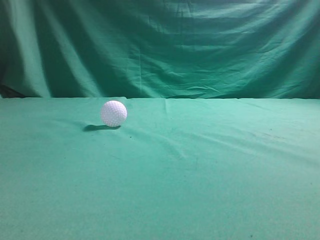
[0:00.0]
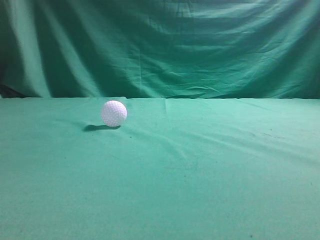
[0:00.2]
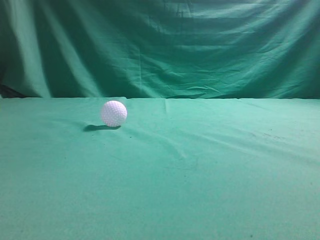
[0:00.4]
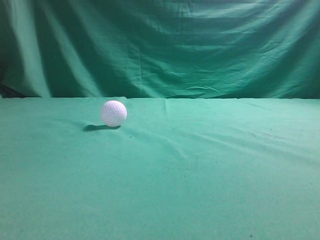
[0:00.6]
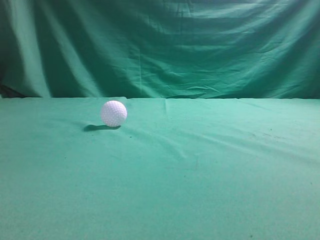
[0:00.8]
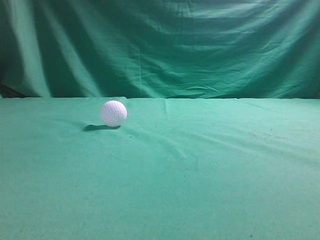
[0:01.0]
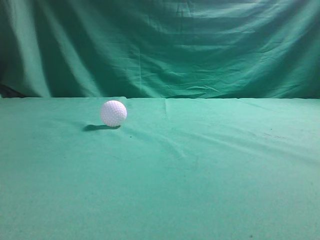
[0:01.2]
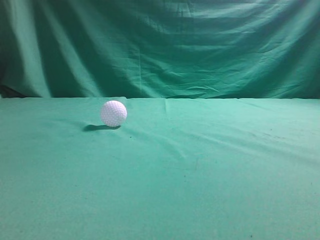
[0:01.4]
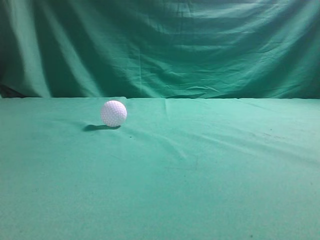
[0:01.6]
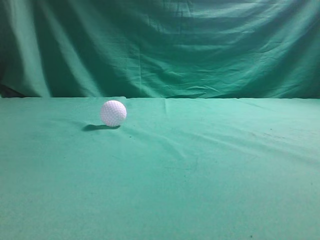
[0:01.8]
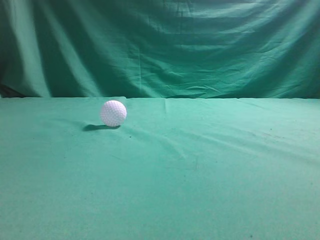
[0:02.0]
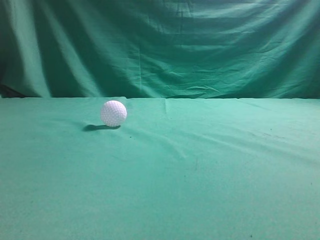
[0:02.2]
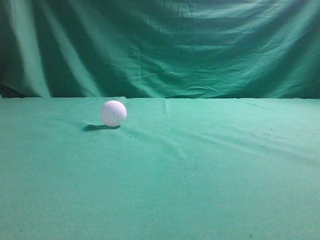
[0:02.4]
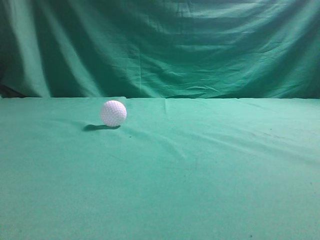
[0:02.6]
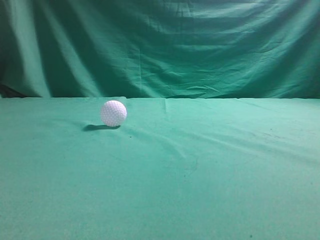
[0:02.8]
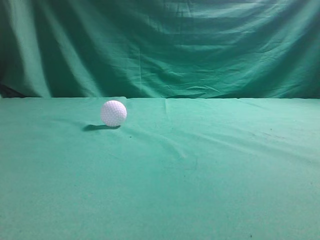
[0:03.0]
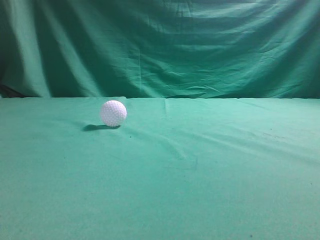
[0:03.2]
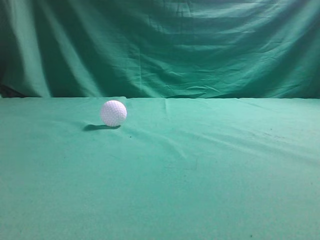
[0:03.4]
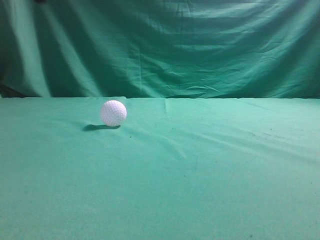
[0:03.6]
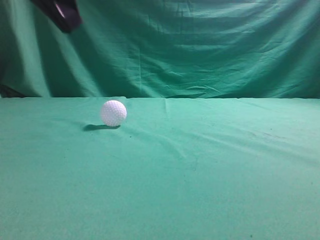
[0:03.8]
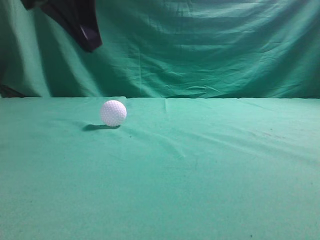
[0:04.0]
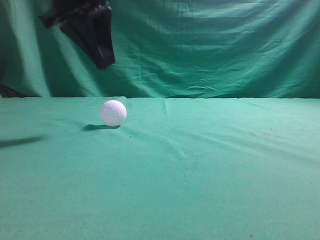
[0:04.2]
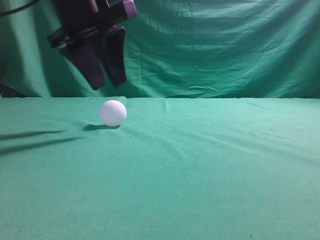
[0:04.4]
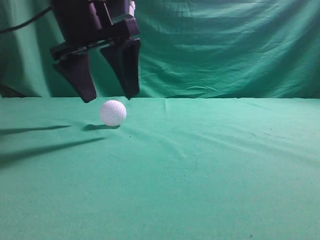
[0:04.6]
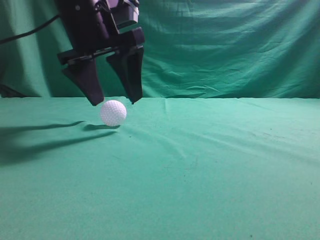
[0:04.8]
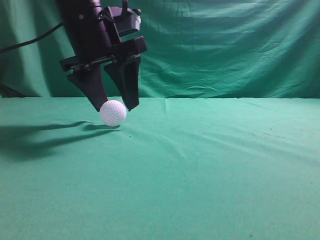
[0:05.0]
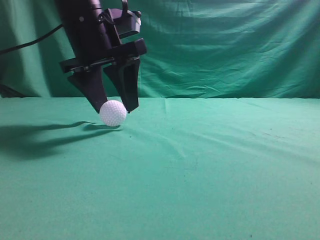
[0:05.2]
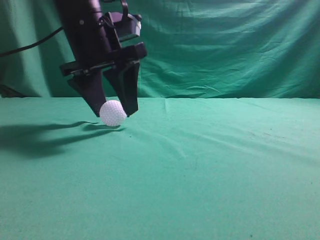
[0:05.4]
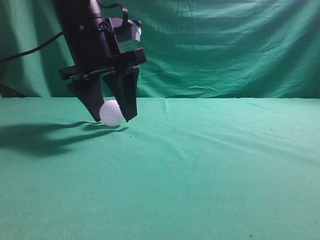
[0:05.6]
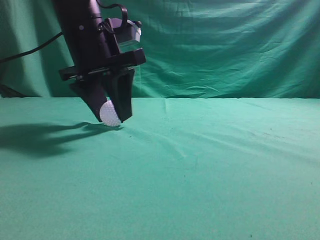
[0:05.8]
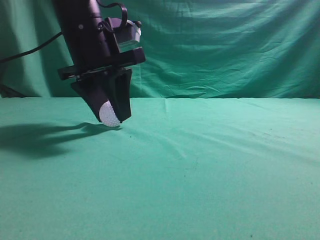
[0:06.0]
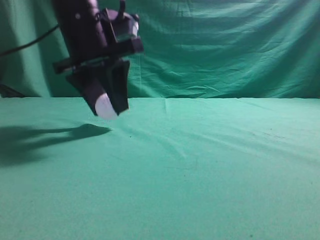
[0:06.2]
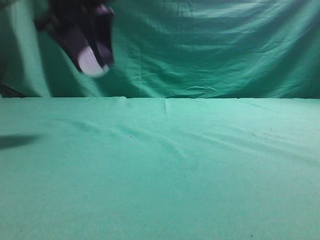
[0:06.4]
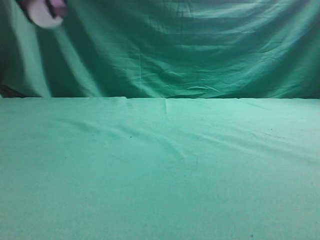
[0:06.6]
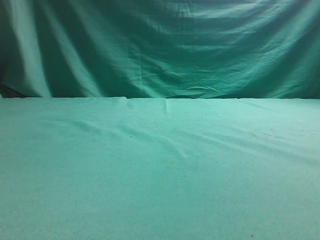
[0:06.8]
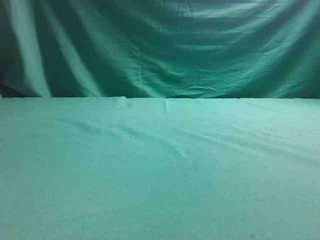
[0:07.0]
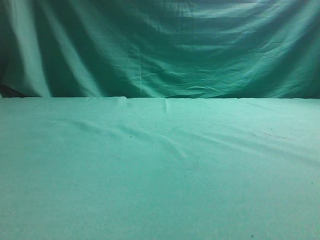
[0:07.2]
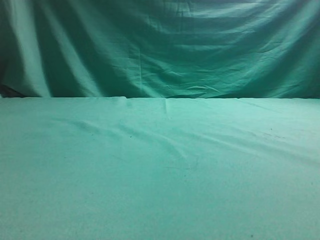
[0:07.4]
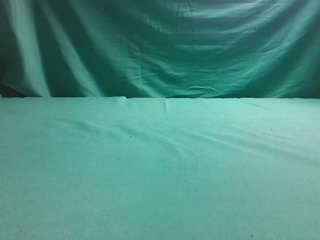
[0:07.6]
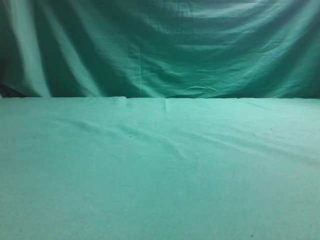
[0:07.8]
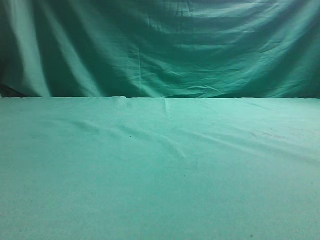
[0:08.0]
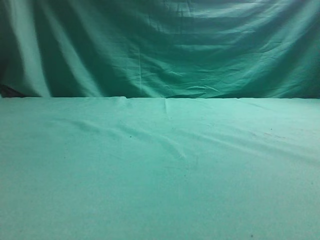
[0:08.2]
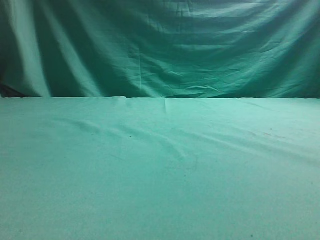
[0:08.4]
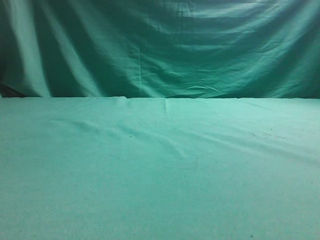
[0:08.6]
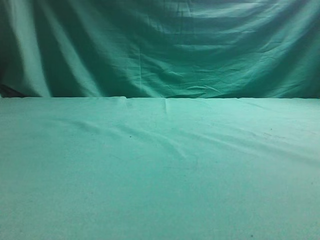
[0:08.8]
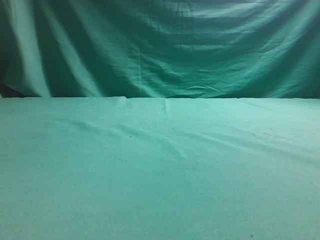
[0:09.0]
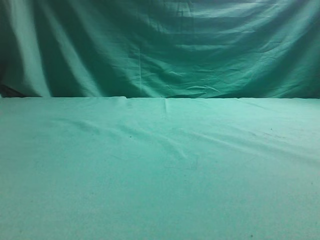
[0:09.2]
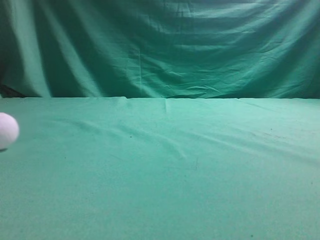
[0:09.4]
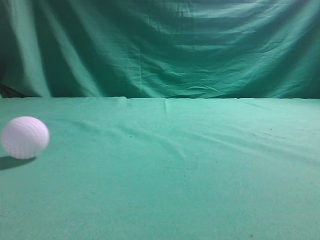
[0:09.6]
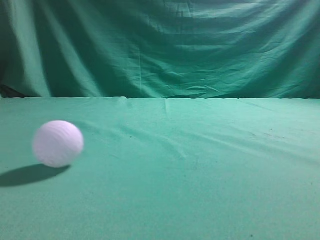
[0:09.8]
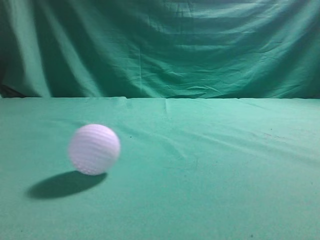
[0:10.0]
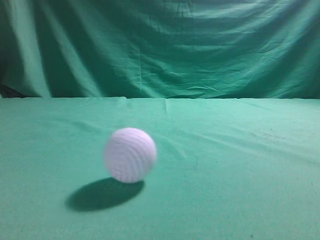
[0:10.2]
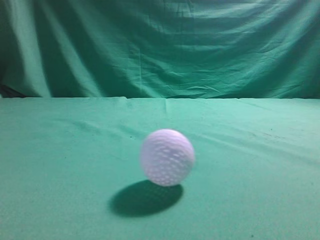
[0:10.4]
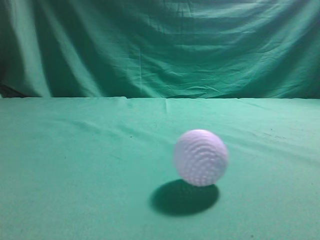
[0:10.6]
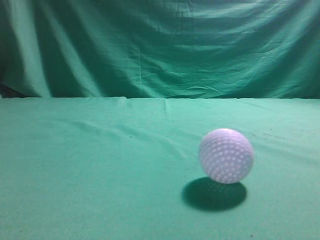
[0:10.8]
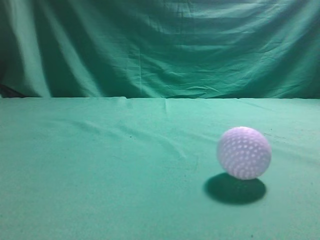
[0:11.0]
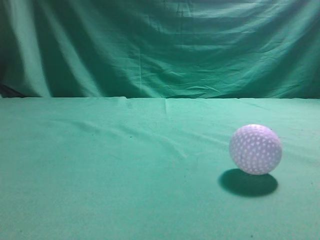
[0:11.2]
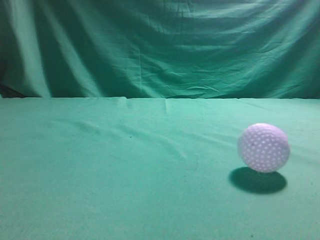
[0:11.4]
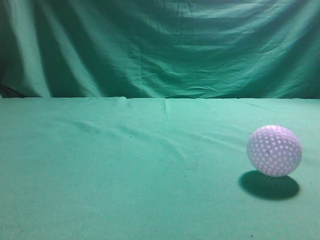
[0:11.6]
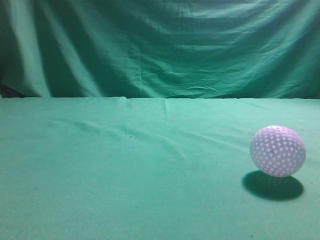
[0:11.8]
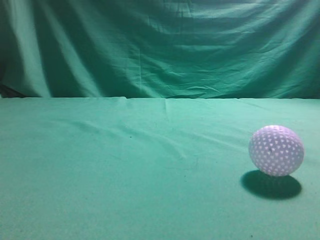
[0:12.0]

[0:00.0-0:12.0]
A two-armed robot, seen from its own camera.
Task of the whole recording: pick up the ball and place it on the plate, then pick up the ball from the plate and put it in the center of the table.
Step, 0:00.0 to 0:06.0: Grab the spherical object with your left arm.
Step, 0:06.2 to 0:08.6: Place the sphere on the white object.
0:03.0 to 0:04.4: The left gripper travels forward, to the right and downward by roughly 25 cm, and opens.
0:04.4 to 0:06.0: The left gripper changes place by about 5 cm, and opens, then closes again.
0:06.0 to 0:07.6: The left gripper goes some 25 cm to the left.
0:09.0 to 0:10.4: The left gripper travels backward by some 30 cm, and closes.
0:10.4 to 0:12.0: The left gripper goes roughly 5 cm downward, while the right gripper is displaced upward, to the left and forward by approximately 10 cm.

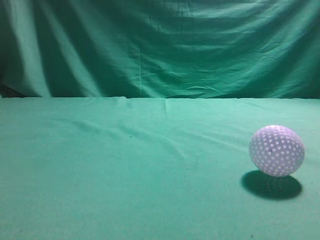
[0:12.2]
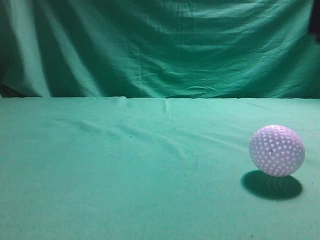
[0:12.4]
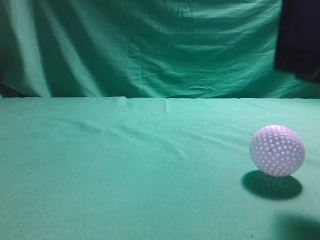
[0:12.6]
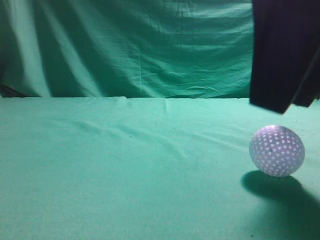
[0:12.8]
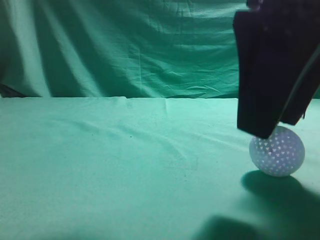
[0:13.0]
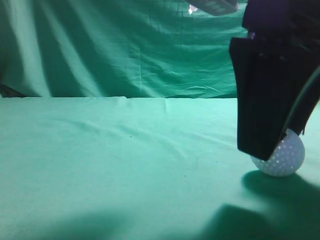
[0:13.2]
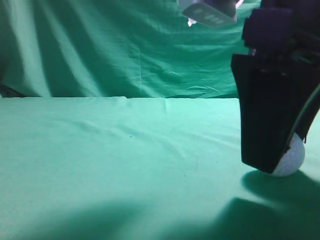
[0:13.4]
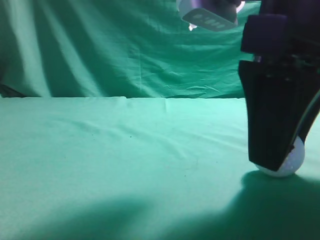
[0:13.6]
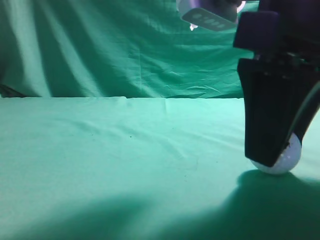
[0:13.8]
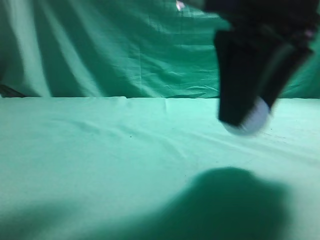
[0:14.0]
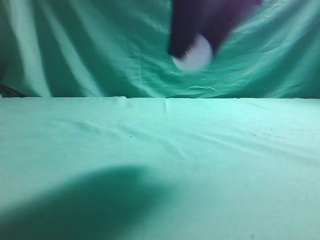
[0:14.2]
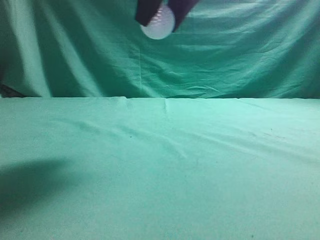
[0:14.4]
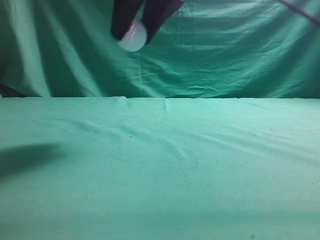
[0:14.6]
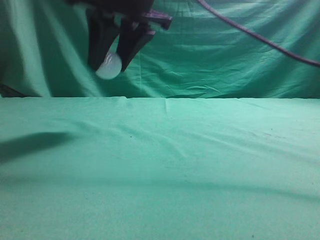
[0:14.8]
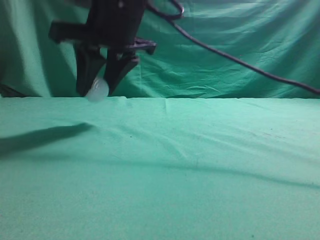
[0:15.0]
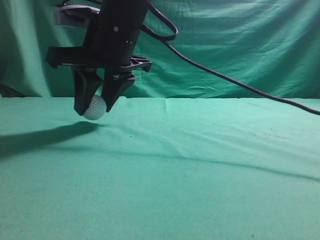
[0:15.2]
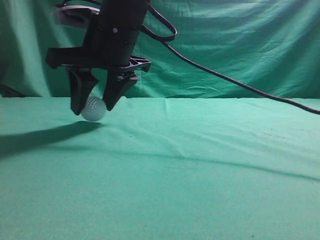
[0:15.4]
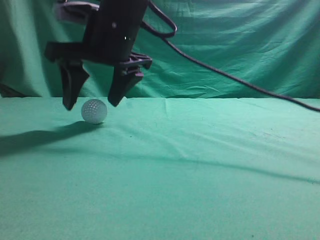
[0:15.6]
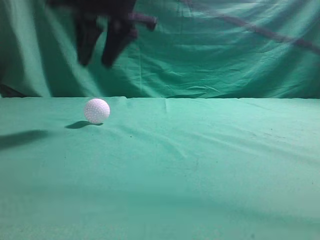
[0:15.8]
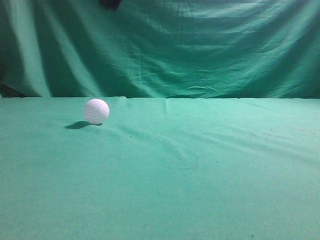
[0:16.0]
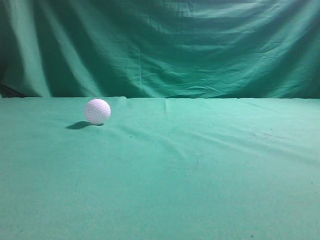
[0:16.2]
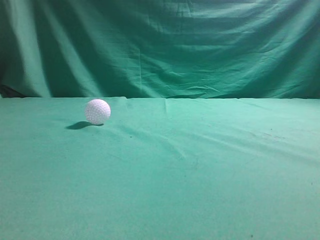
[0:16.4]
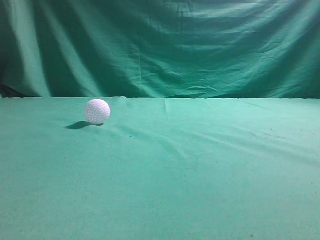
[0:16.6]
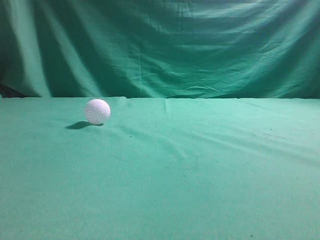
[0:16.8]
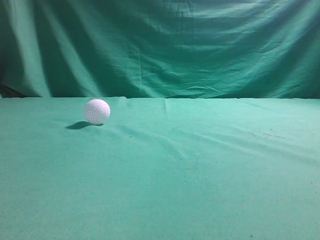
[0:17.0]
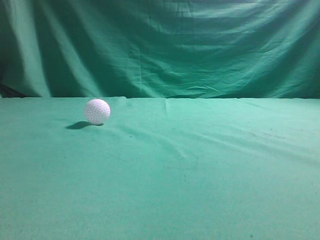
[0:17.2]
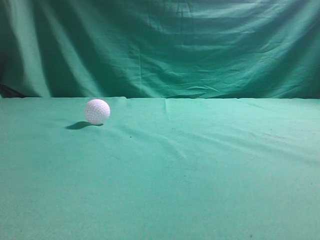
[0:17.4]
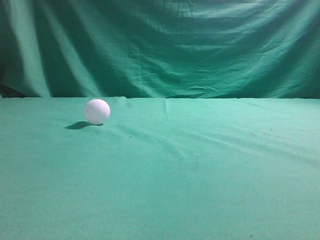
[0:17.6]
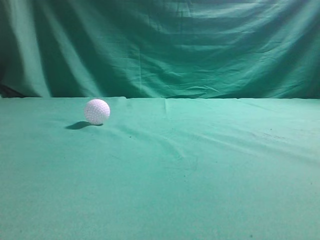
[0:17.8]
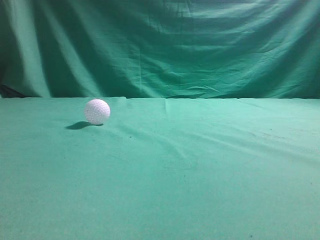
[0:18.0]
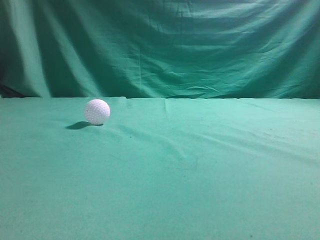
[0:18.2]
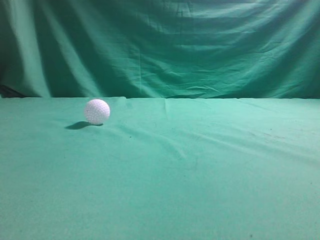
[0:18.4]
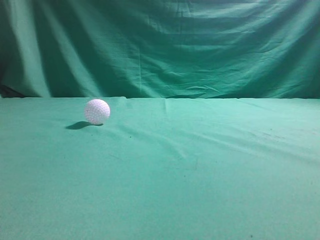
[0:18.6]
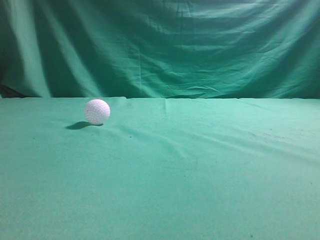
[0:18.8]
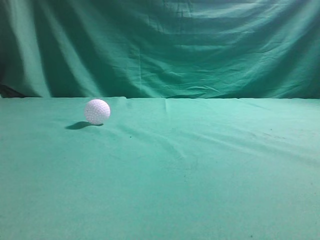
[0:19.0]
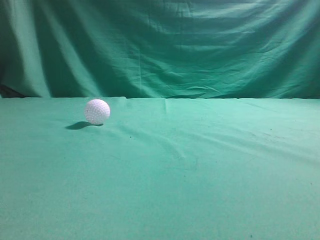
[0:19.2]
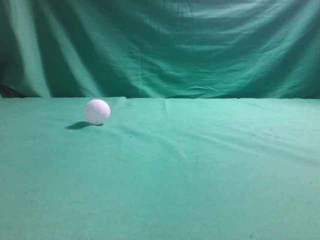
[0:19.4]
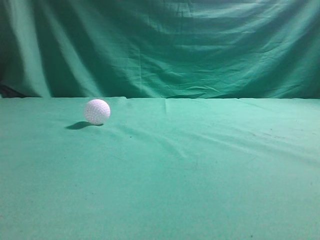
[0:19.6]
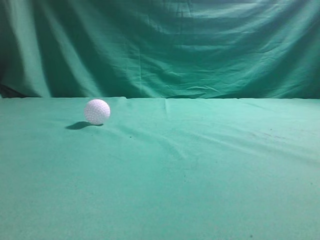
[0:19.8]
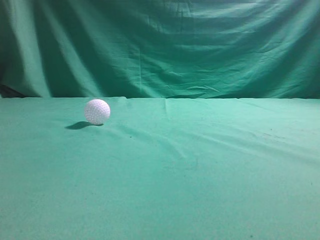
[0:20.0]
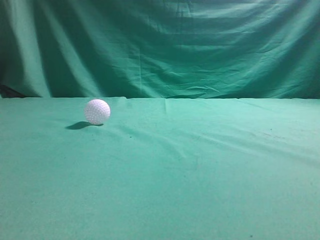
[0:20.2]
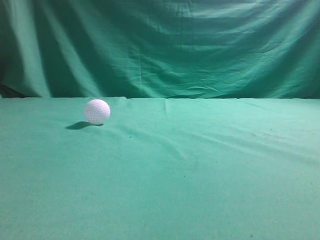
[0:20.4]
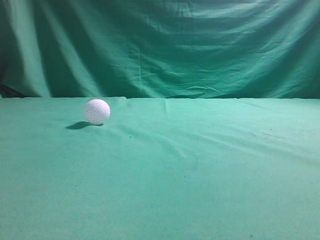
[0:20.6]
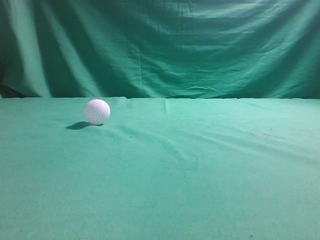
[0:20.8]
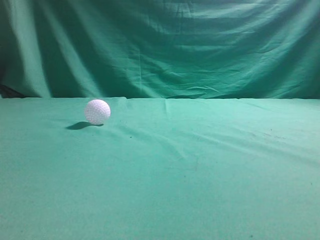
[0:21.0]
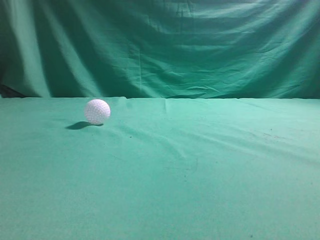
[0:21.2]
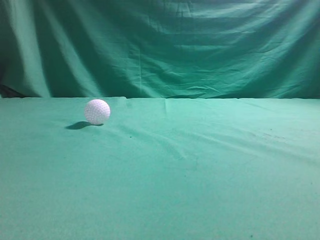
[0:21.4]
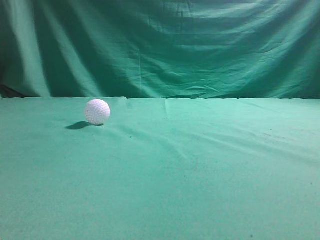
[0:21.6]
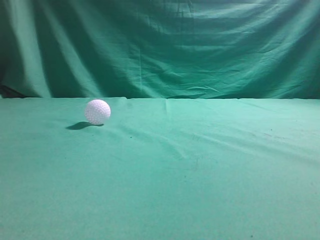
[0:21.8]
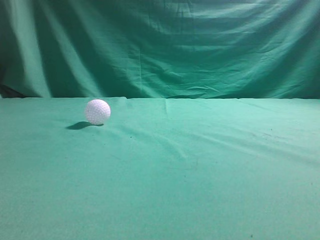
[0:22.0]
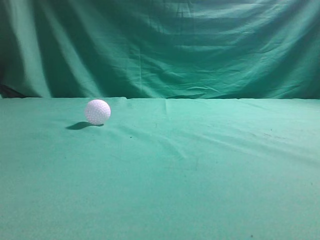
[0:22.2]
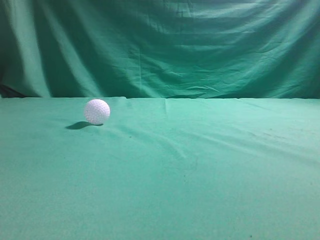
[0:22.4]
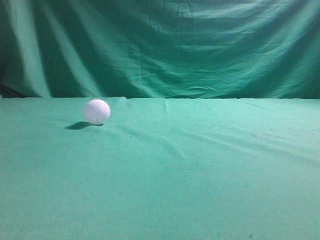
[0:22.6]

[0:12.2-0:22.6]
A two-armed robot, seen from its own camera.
Task of the whole recording: pick up the ball and place it on the plate, then pick up the ball from the plate and put it in the center of the table.
Step, 0:14.0 to 0:15.6: Put the picked-up object on the table.
0:12.2 to 0:13.6: The right gripper moves downward, to the left and forward, approximately 15 cm, and opens.
0:13.6 to 0:15.2: The right gripper travels to the left and forward by roughly 25 cm.
0:15.2 to 0:16.6: The right gripper shifts about 30 cm upward, to the right and backward, and closes its fingers.
